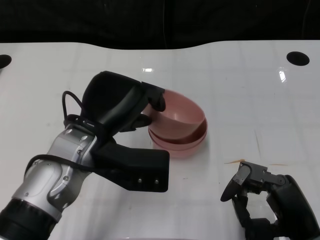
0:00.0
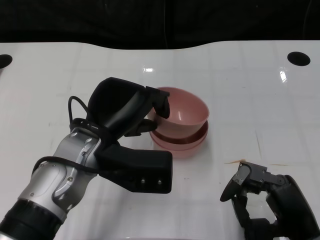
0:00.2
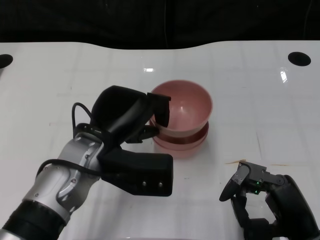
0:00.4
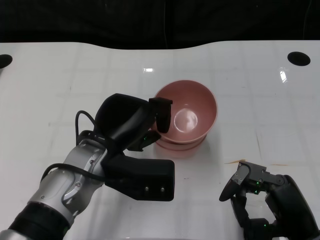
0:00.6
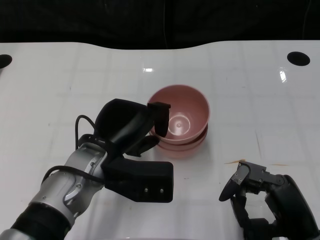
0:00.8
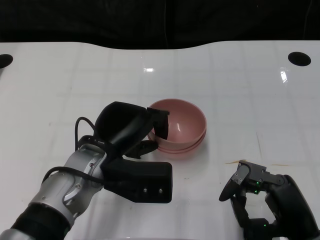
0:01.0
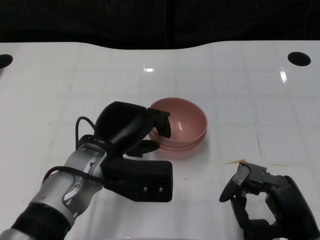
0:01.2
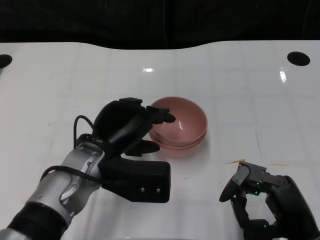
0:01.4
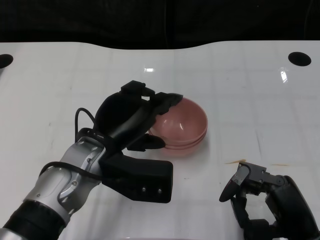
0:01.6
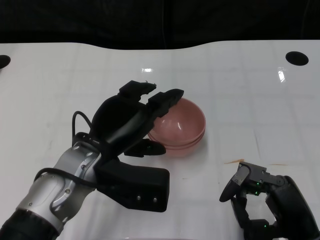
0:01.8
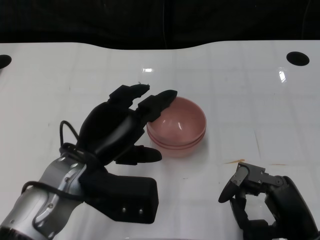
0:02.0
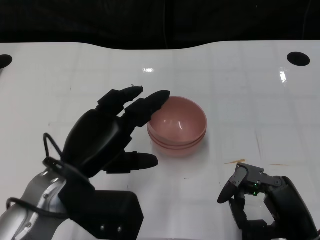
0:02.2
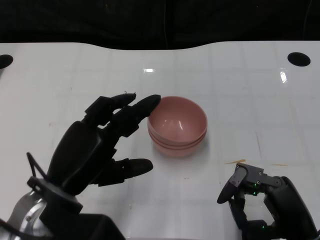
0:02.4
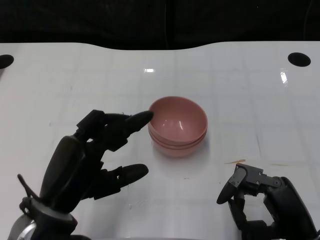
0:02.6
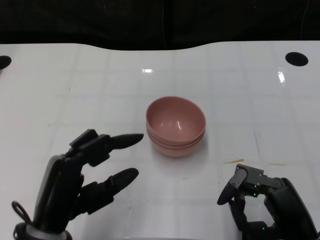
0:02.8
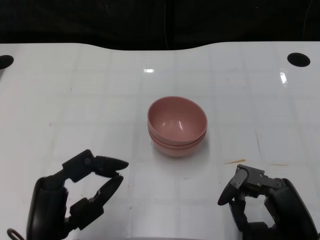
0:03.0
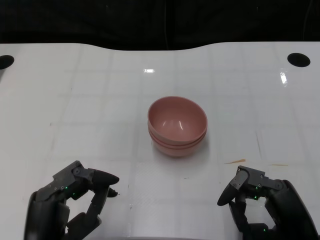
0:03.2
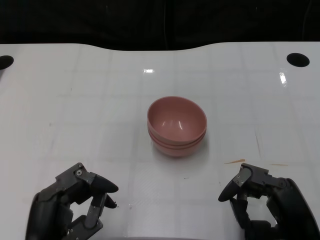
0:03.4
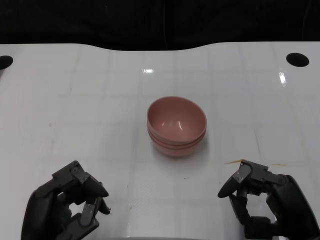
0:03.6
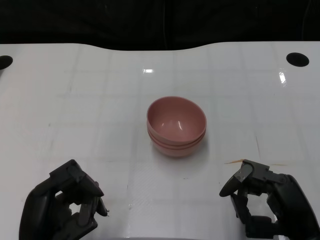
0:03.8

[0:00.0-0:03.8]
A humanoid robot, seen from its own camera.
Task of the whole recording: Pick up the bowl on one side of the table and place it on top of the middle bowl, then pick up the bowl on the other side of the table and place it on top of the middle bowls.
Step, 0:00.0 to 0:02.4: Place the bowl on the left onto the bowl in the middle with left gripper.
0:00.0 to 0:01.2: The hands stay close to where they were, moving slightly.
0:01.2 to 0:02.6: The left hand shifts about 10 cm backward and to the left.
0:02.6 to 0:03.8: The left hand is displaced backward by approximately 5 cm.
